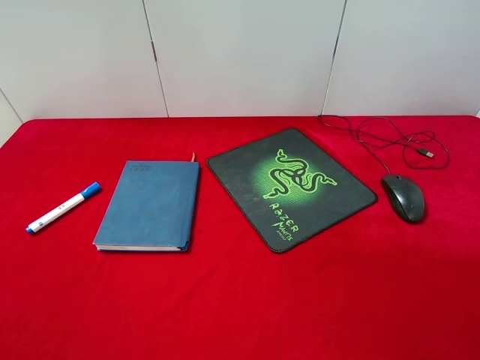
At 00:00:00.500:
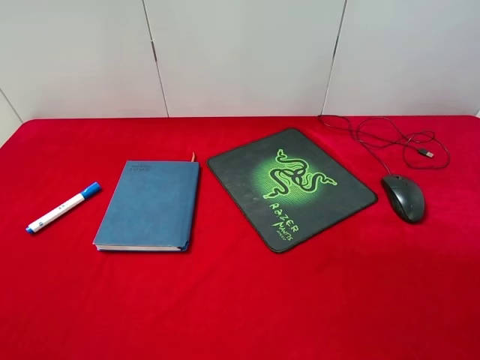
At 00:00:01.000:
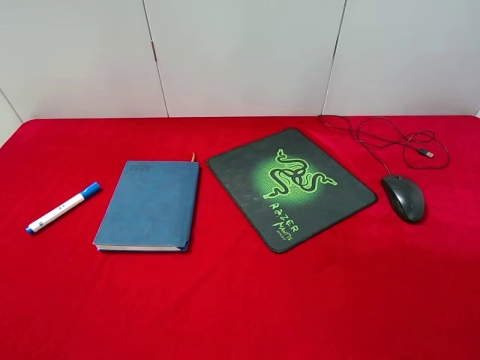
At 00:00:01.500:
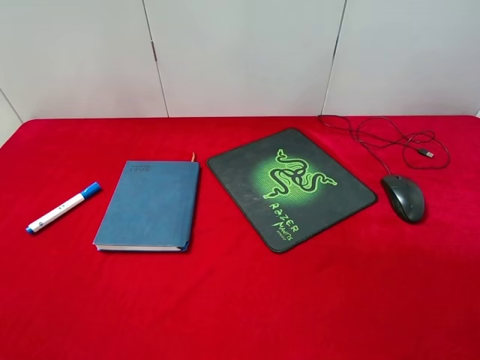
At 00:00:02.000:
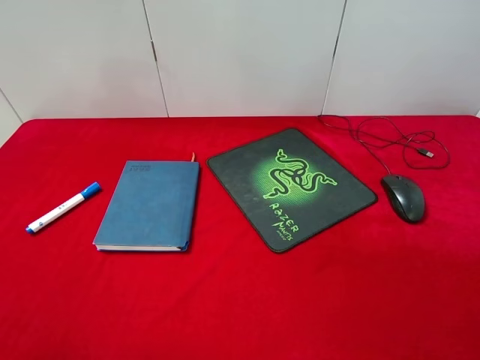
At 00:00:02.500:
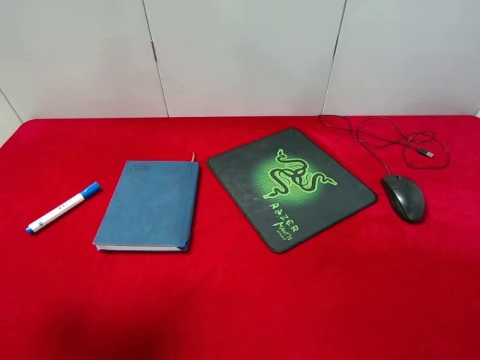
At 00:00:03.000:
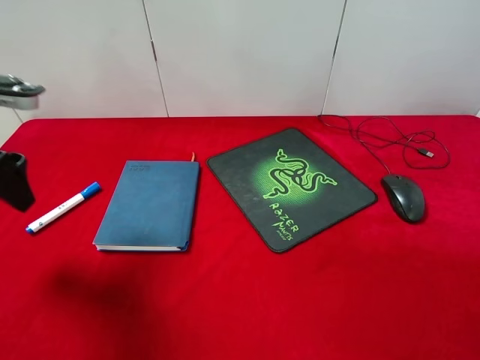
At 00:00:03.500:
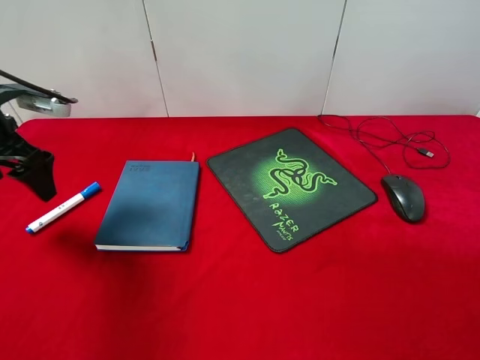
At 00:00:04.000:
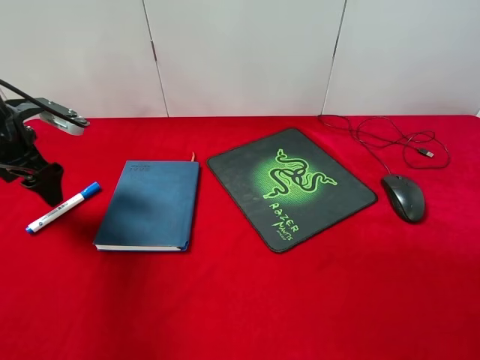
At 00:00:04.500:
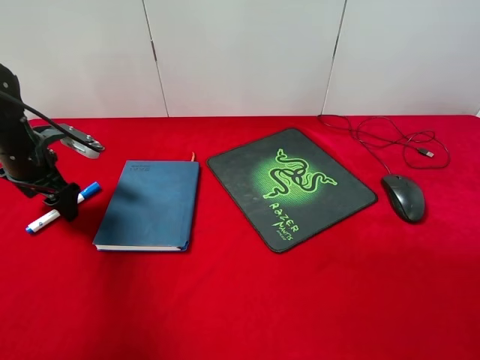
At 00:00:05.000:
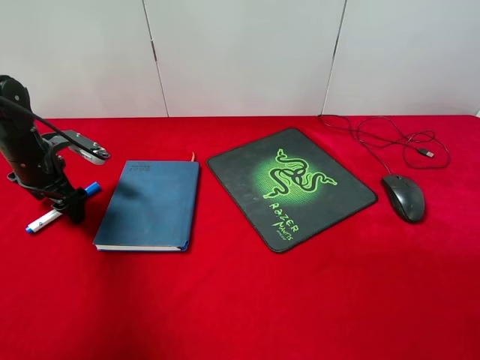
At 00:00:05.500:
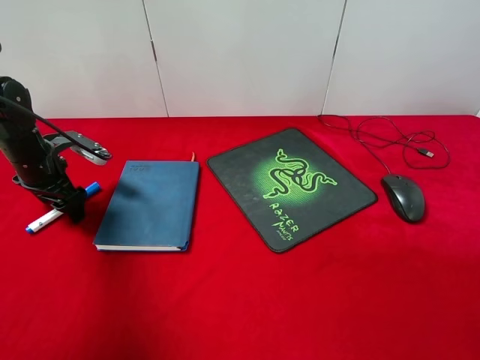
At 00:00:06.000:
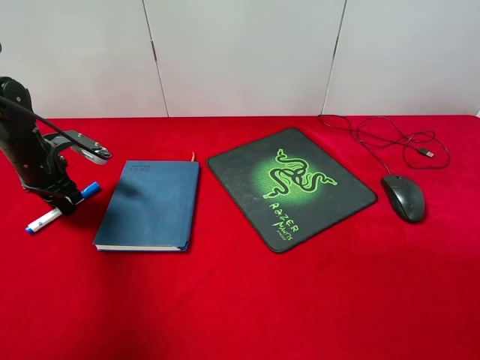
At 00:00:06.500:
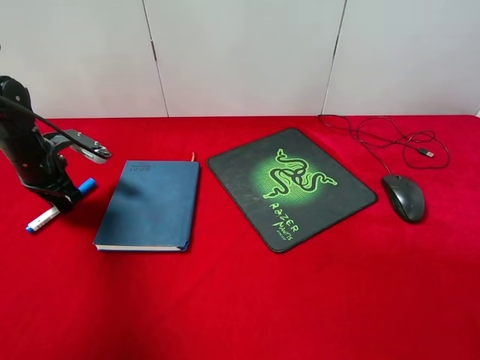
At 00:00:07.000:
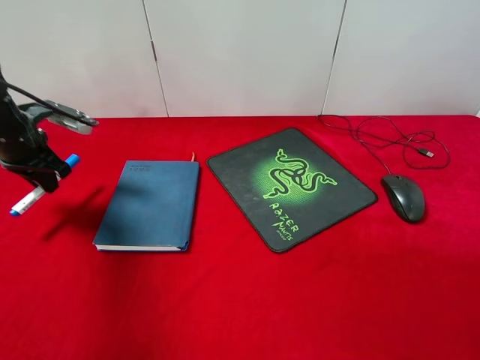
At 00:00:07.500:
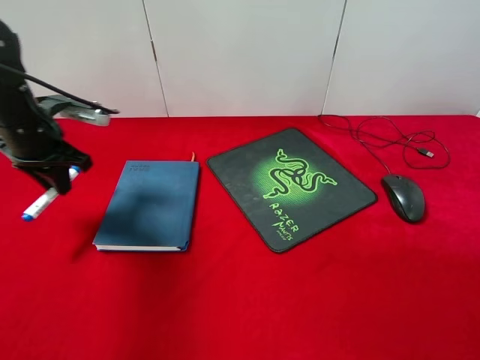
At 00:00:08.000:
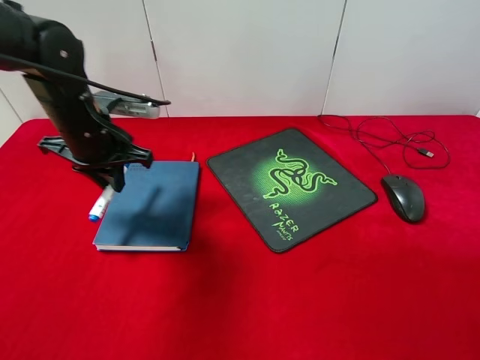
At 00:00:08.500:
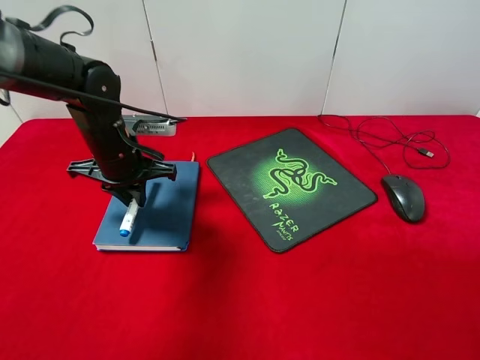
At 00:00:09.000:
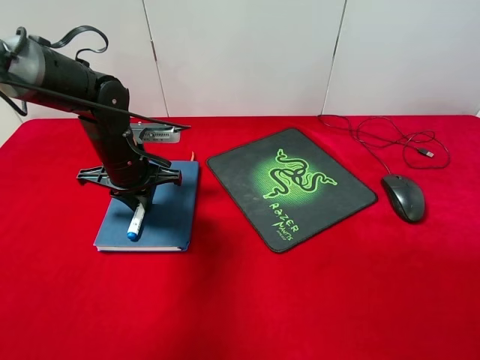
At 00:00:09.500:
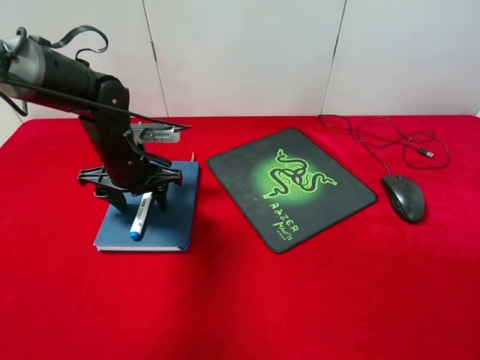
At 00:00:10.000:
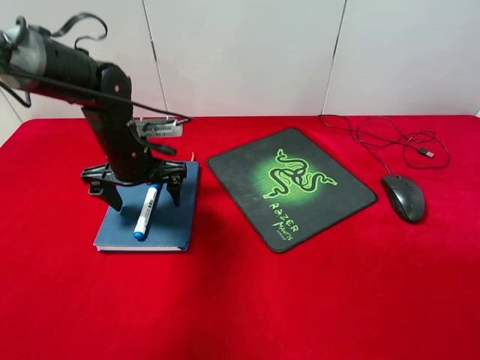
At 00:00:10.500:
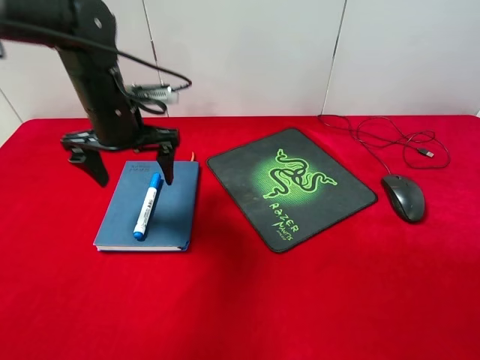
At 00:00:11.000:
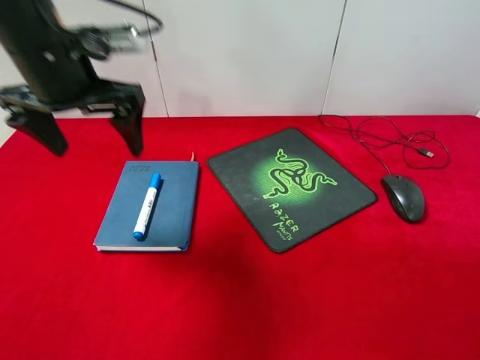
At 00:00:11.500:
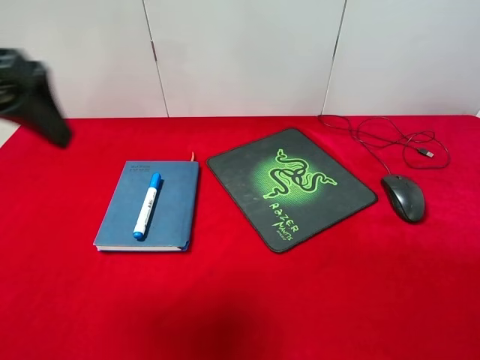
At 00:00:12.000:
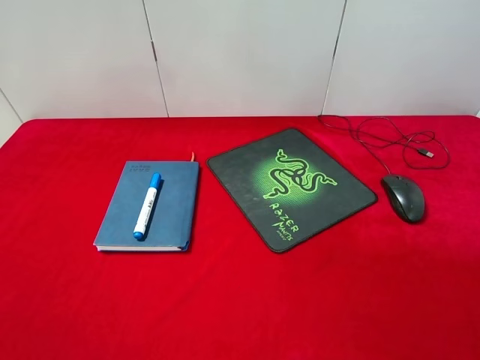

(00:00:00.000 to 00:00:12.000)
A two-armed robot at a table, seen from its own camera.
Step, 00:00:00.000 - 00:00:06.500: Pick up the marker pen with left gripper.
Step, 00:00:07.000 - 00:00:10.000: Place the marker pen on the notebook with left gripper.
00:00:02.000 - 00:00:04.000: The left gripper shifts about 30 cm forward and downward.
00:00:04.000 - 00:00:06.000: The left gripper moves downward, about 10 cm, and closes.
00:00:06.000 - 00:00:08.000: The left gripper moves to the right and upward, roughly 15 cm.
00:00:08.000 - 00:00:10.000: The left gripper is displaced downward by some 5 cm, and opens.
00:00:10.000 - 00:00:12.000: The left gripper shifts approximately 40 cm backward, upward and to the left.

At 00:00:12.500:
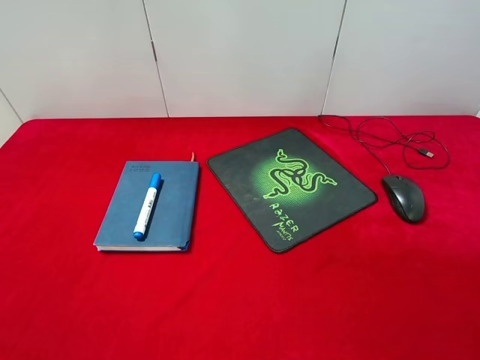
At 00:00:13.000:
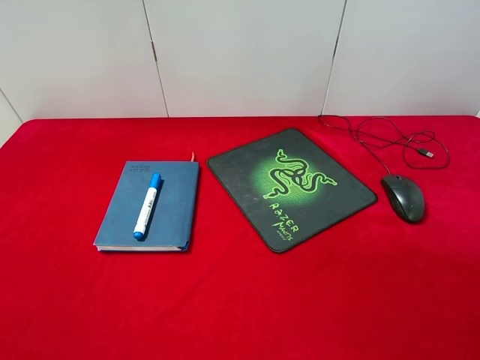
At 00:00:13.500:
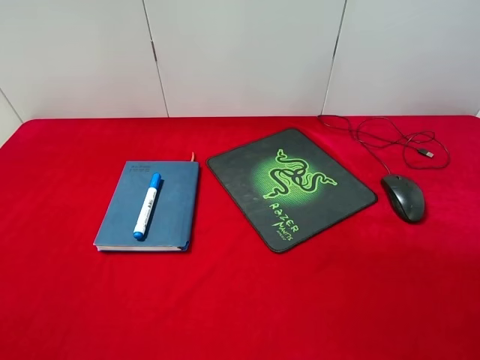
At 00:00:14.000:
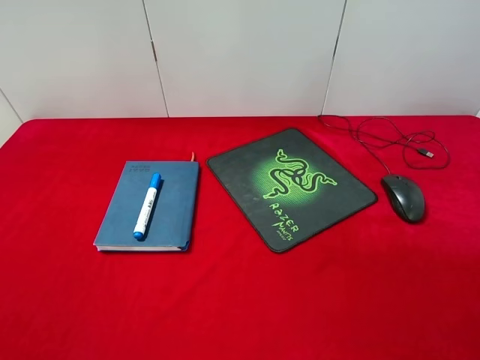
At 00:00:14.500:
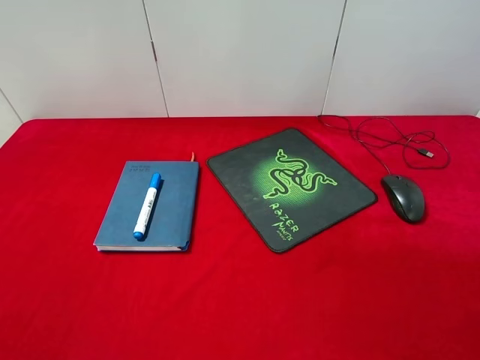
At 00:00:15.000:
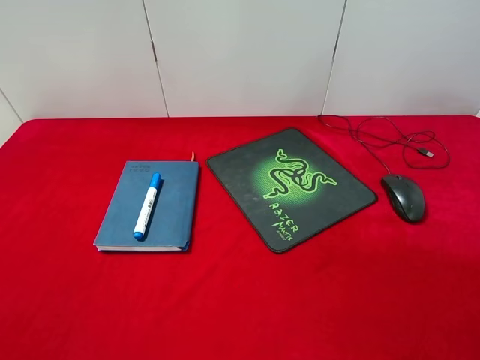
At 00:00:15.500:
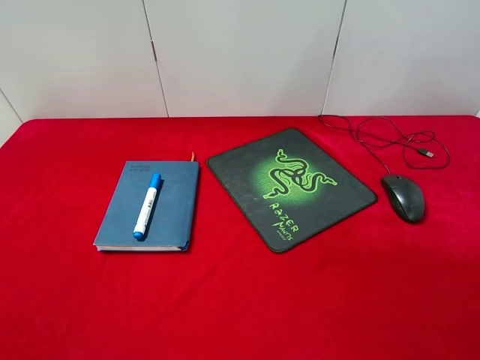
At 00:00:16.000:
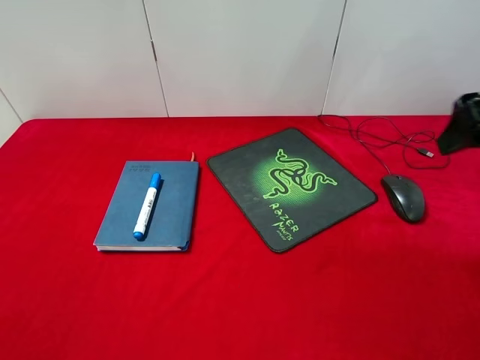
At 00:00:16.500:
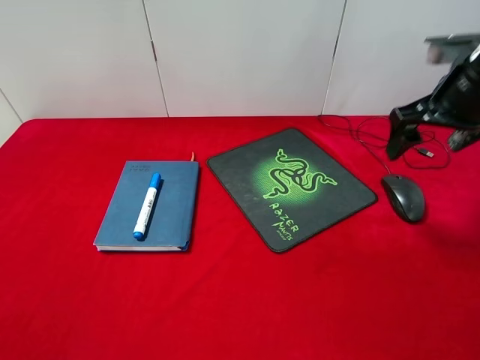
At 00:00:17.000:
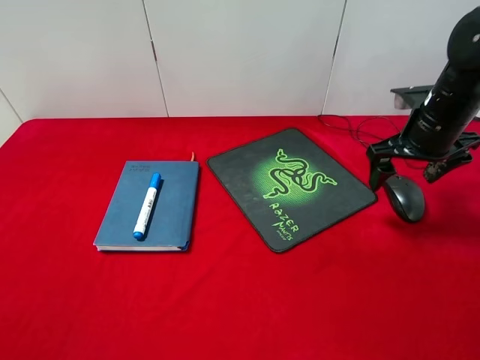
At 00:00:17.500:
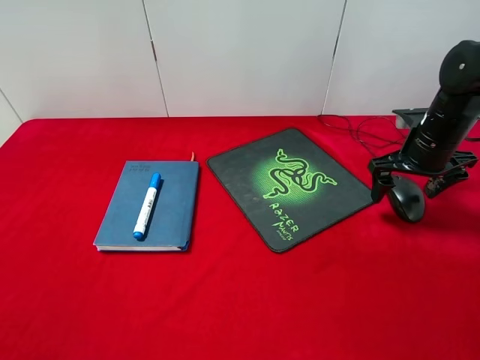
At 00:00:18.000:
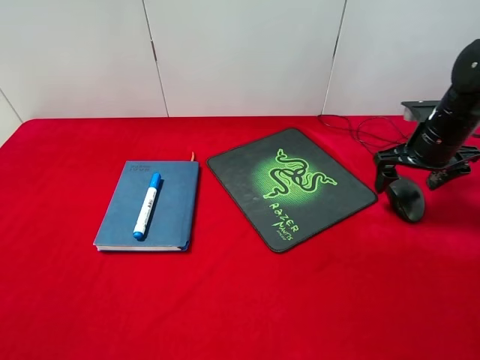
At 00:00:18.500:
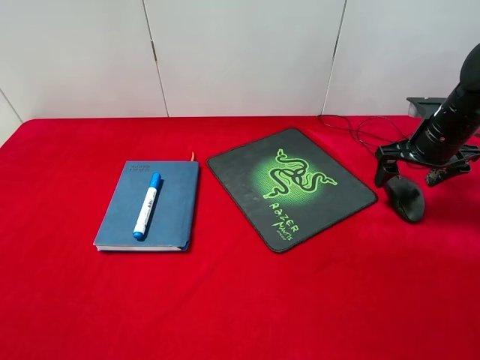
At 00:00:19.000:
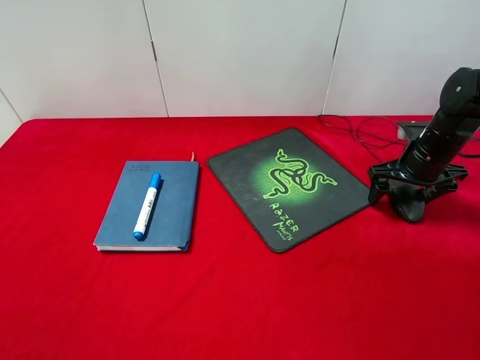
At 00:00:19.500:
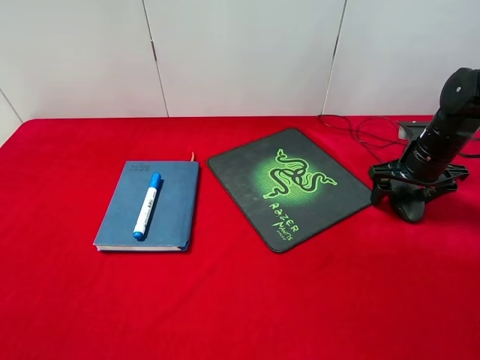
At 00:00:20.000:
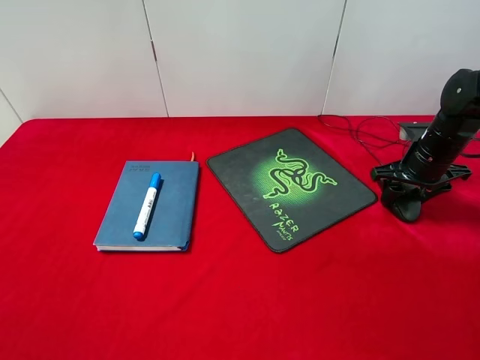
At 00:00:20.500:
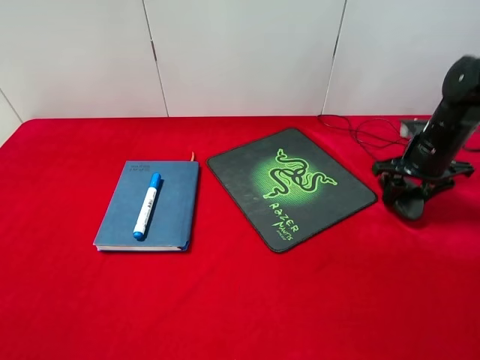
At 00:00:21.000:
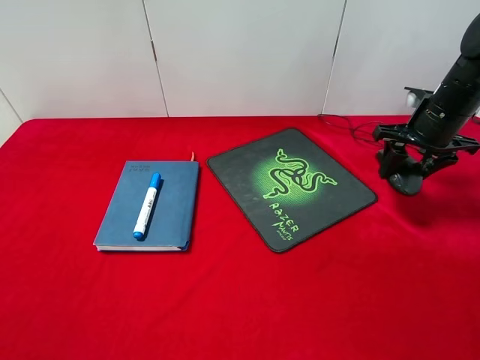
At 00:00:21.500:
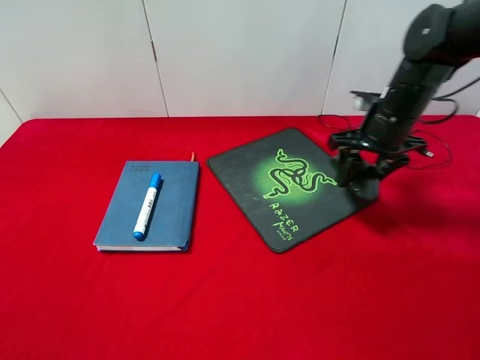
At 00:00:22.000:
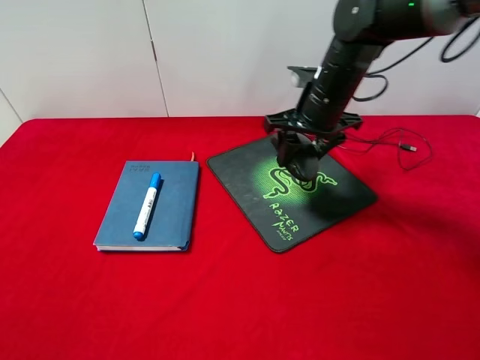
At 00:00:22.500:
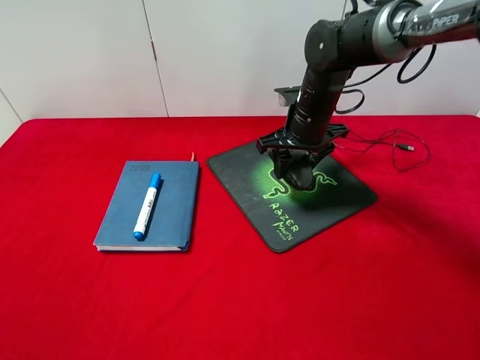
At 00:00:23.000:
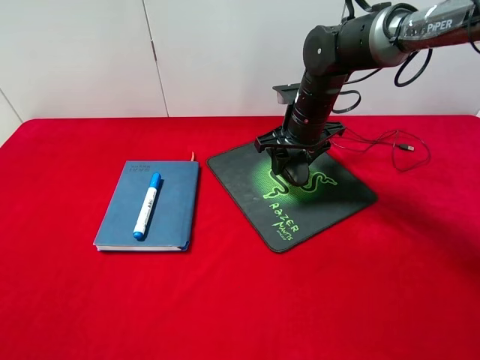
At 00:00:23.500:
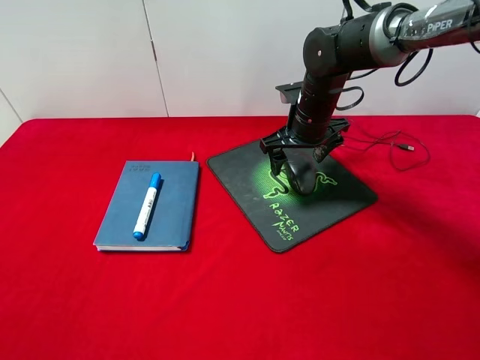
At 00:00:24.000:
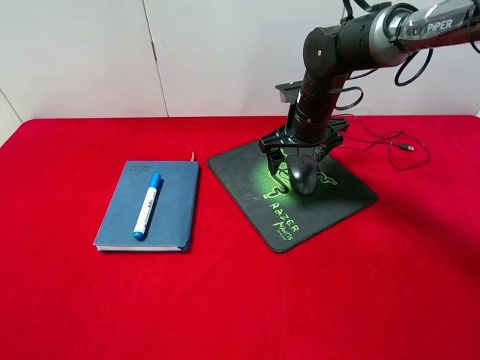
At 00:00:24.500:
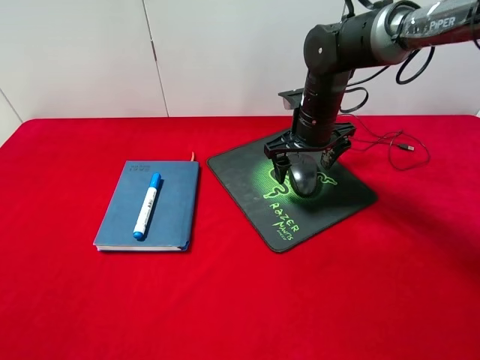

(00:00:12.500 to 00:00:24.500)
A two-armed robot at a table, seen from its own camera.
Step, 00:00:12.500 - 00:00:20.500: Pick up the mouse with right gripper.
Step, 00:00:21.000 - 00:00:24.000: Place the mouse on the mouse pad with right gripper.
00:00:14.500 - 00:00:16.500: The right gripper moves forward, about 30 cm.
00:00:16.500 - 00:00:18.500: The right gripper moves downward, some 10 cm.
00:00:18.500 - 00:00:20.500: The right gripper closes up.
00:00:20.500 - 00:00:22.500: The right gripper shifts about 20 cm to the left.
00:00:22.500 - 00:00:24.500: The right gripper opens up.

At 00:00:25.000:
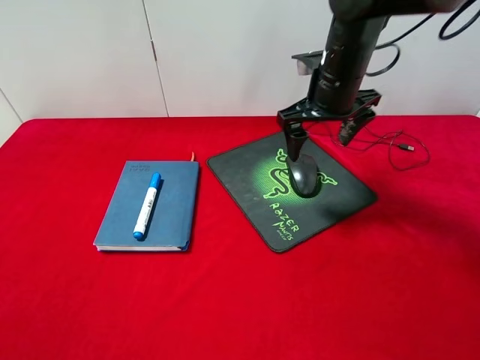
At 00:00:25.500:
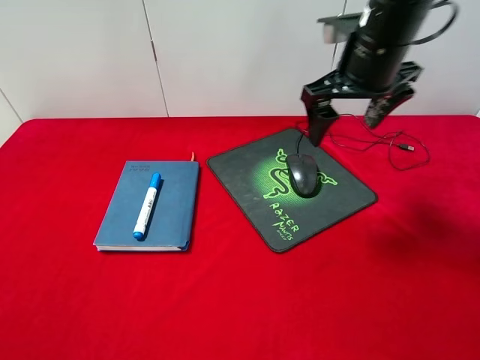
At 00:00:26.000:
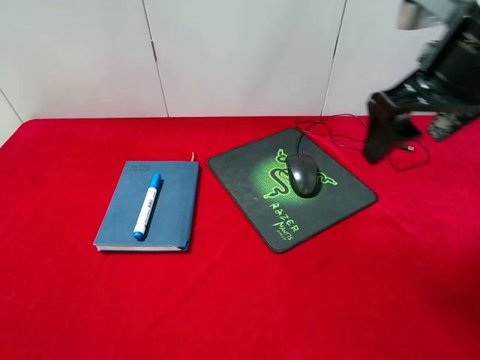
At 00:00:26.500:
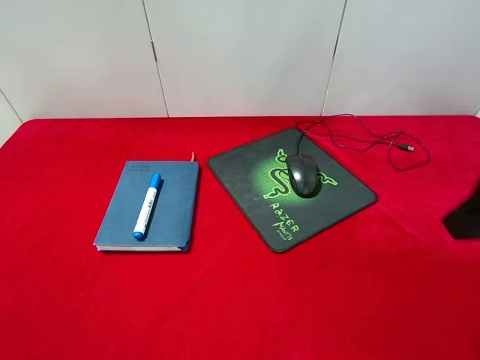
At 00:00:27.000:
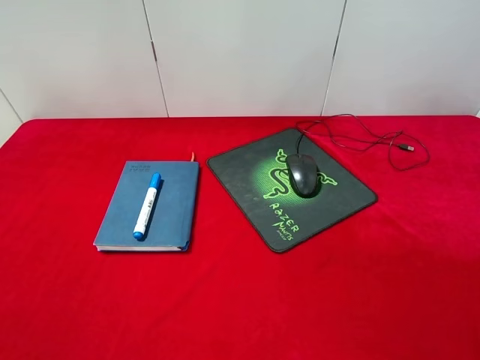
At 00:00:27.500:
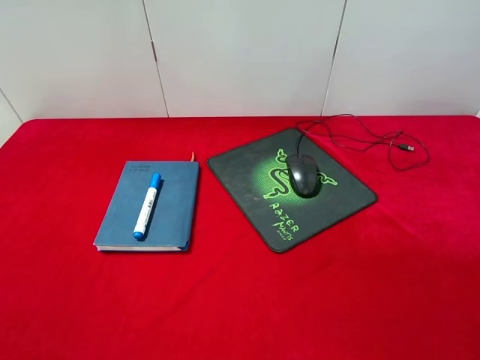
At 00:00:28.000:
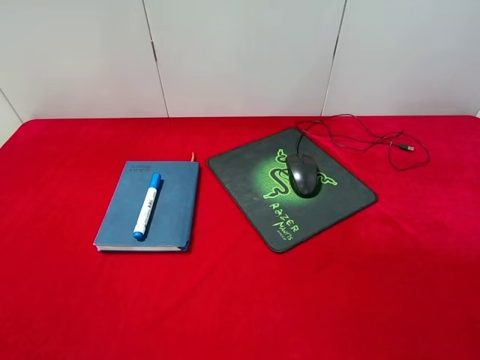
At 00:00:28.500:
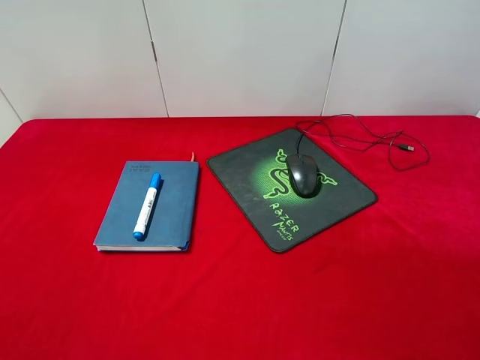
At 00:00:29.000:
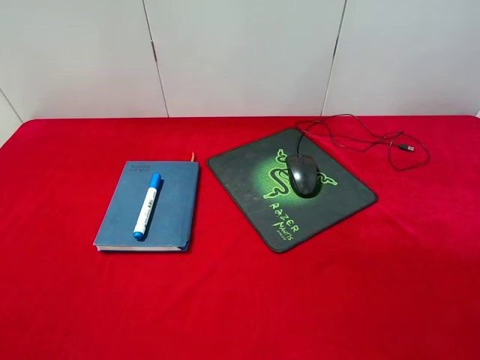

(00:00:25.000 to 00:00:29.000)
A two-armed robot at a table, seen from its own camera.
00:00:25.000 - 00:00:27.000: The right gripper is displaced backward and to the right by approximately 35 cm.
